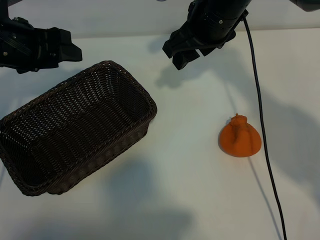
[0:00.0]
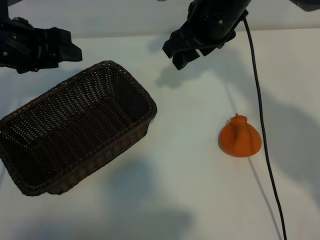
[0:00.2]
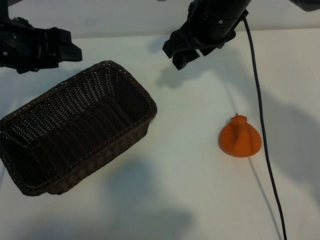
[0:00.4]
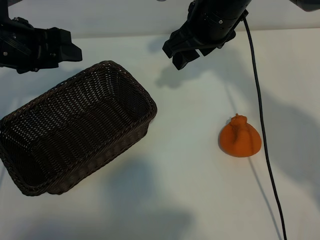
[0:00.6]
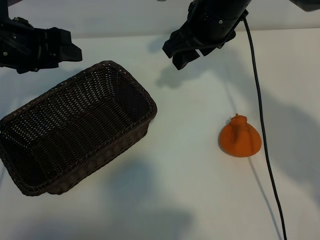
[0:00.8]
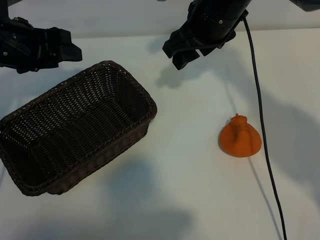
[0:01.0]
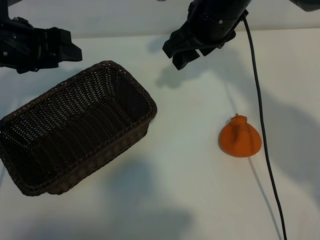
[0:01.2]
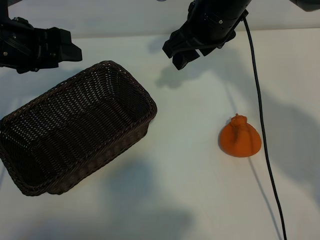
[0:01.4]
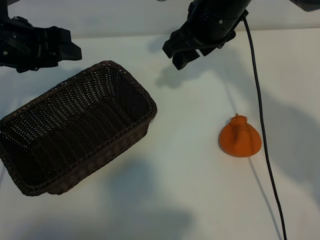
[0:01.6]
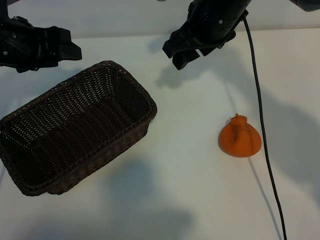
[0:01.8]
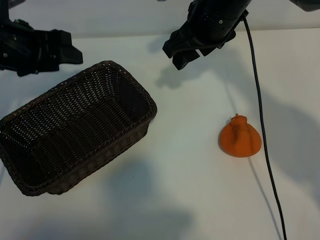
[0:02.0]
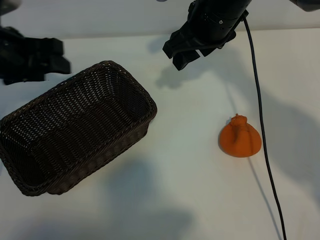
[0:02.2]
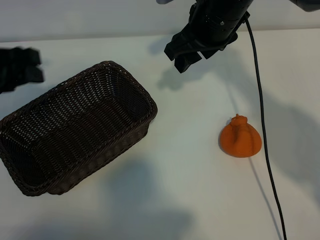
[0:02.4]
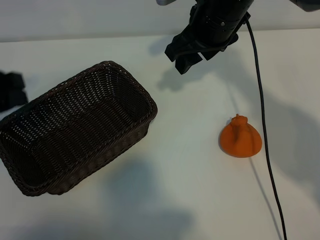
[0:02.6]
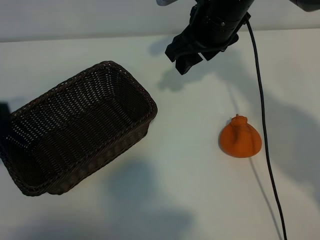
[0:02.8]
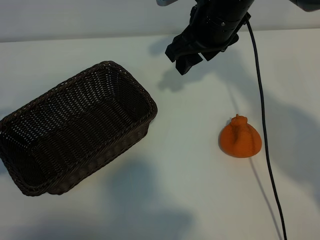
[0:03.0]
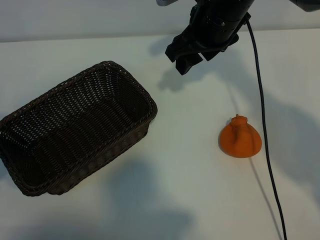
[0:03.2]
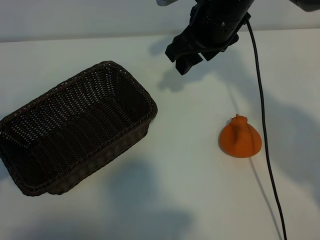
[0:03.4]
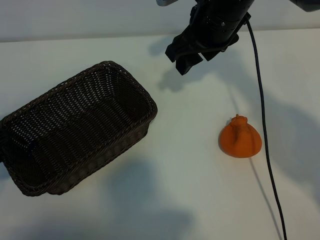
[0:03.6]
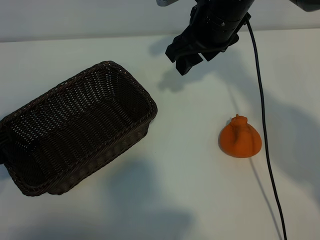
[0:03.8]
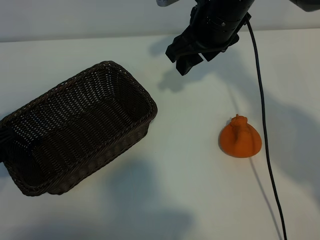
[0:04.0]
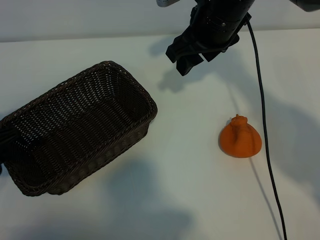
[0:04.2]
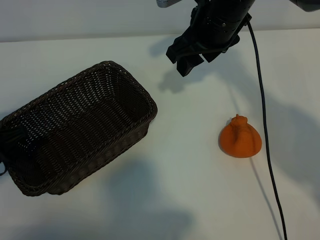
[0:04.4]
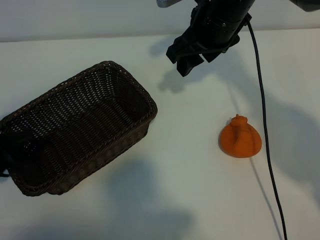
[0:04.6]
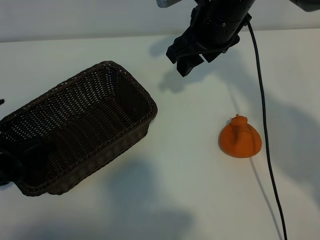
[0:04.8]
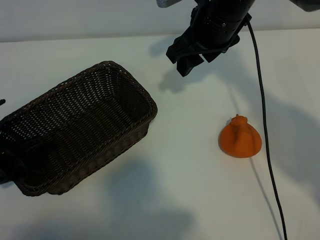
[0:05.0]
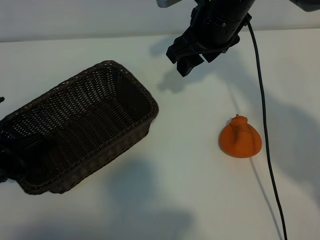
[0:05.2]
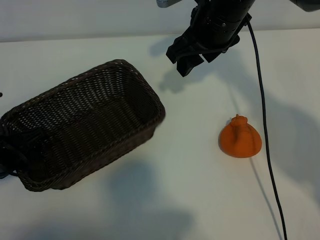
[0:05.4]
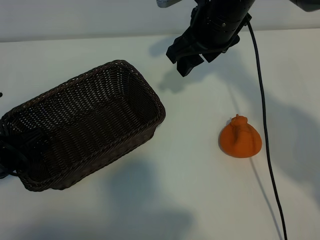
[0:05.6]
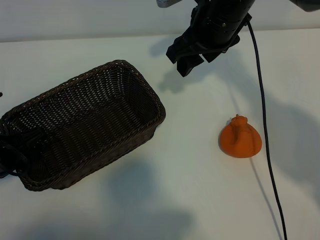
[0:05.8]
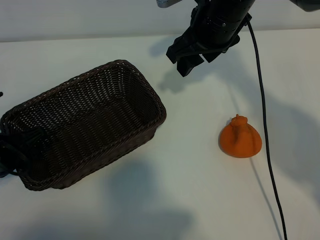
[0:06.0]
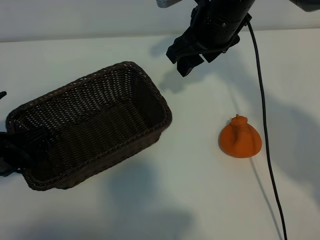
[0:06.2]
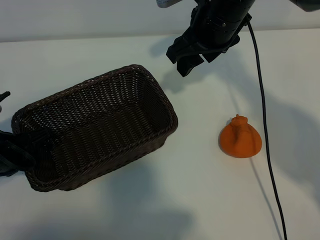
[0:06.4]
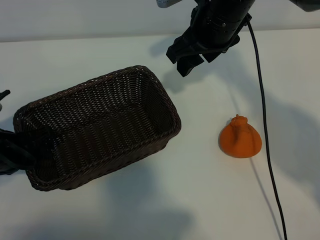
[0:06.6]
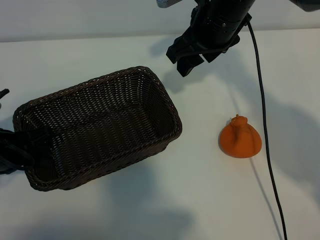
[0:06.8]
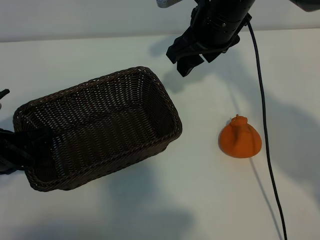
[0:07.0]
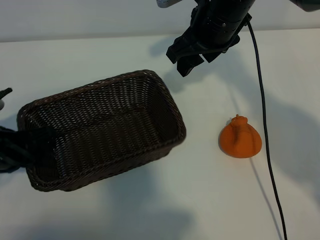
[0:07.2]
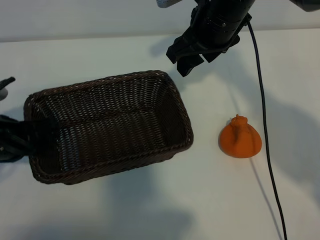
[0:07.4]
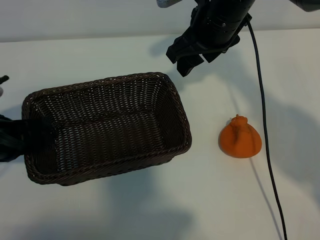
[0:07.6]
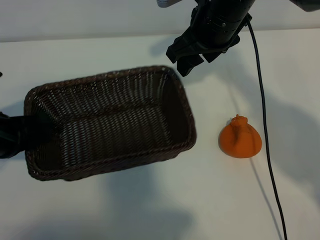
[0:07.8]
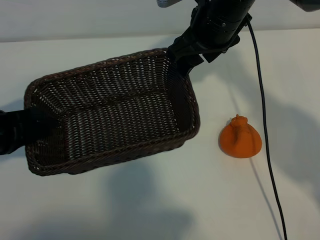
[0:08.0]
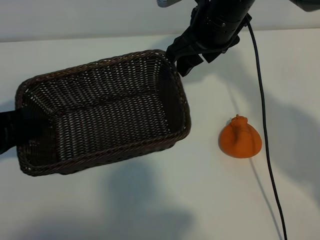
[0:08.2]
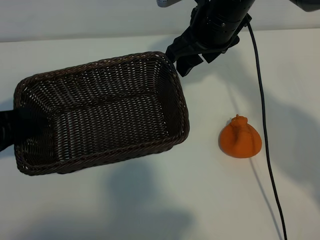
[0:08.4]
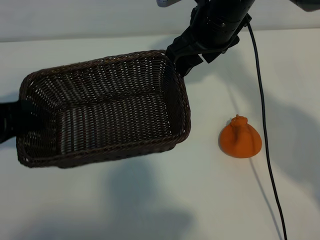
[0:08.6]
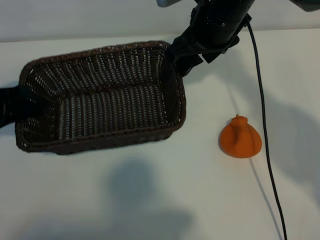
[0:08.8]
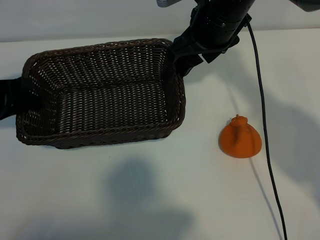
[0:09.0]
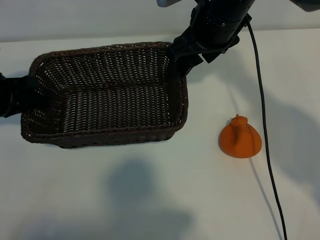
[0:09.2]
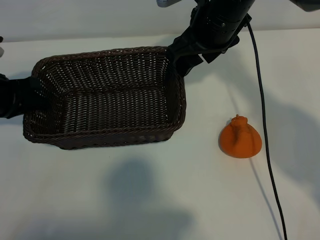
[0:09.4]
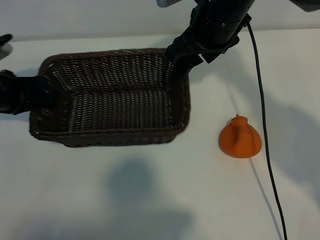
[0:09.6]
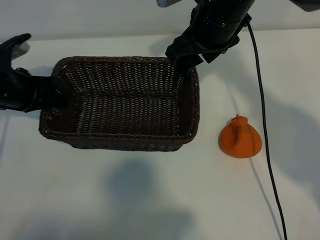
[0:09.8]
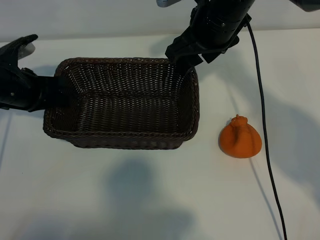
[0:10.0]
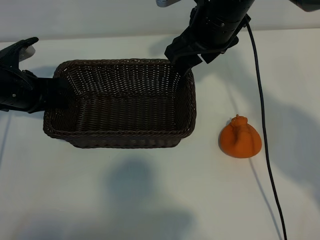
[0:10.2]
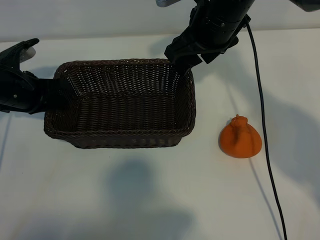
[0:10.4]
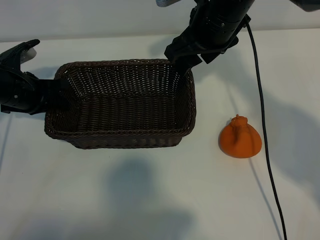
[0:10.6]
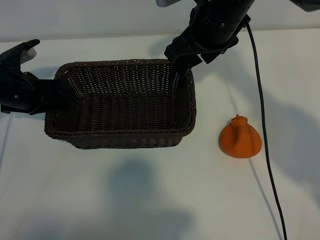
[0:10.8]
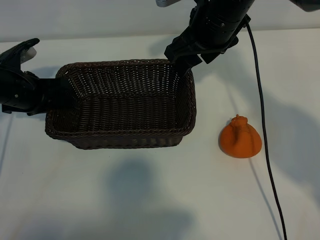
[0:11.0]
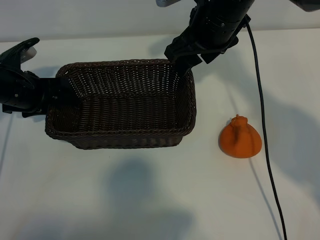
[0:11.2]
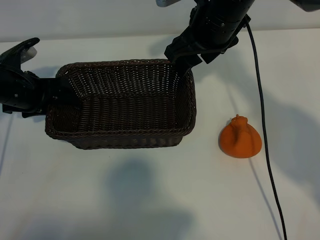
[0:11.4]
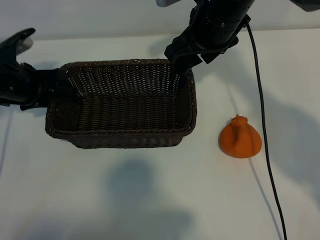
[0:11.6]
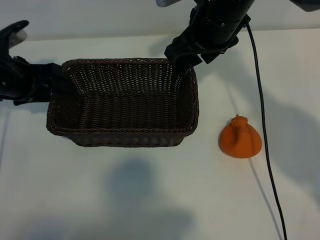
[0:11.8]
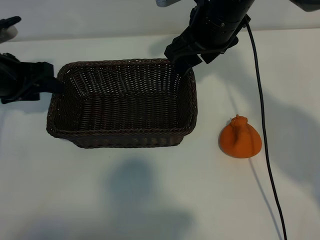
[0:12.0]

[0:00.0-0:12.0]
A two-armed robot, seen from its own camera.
Task of the whole recording: pick up the orange and put it into the basket.
Step, 0:01.6 to 0:05.4: Grasp the basket with left gripper.
Step, 0:05.6 to 0:11.0: Place the basket in the center of view with left gripper.

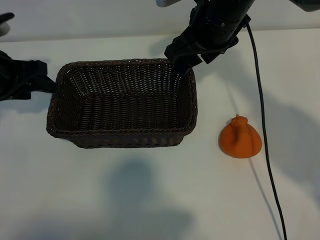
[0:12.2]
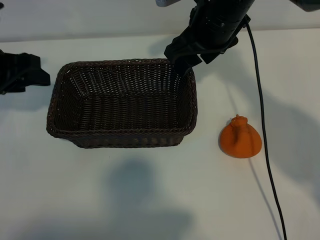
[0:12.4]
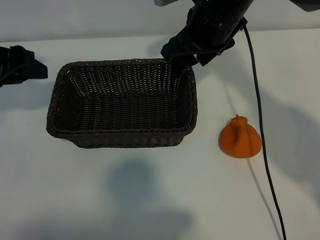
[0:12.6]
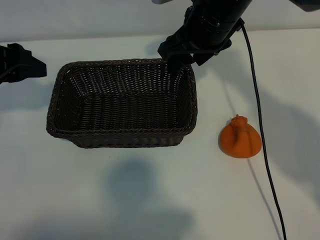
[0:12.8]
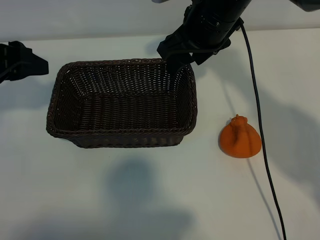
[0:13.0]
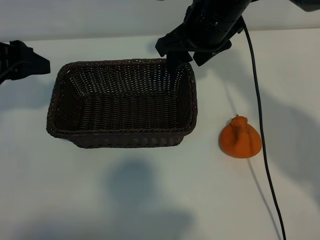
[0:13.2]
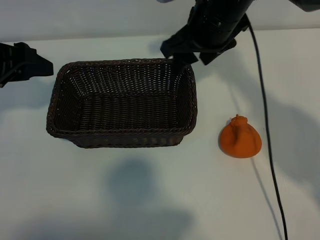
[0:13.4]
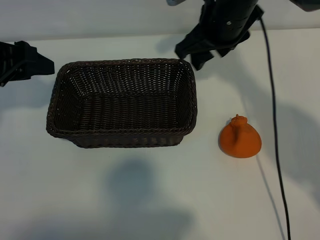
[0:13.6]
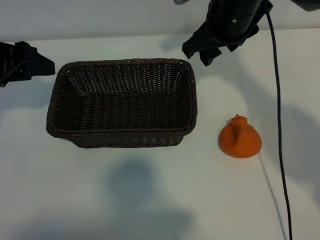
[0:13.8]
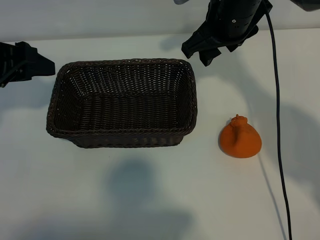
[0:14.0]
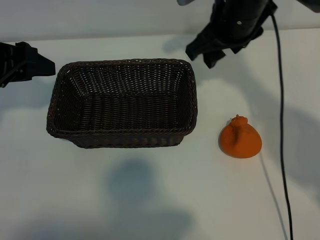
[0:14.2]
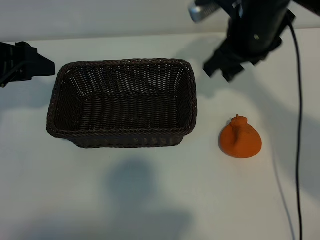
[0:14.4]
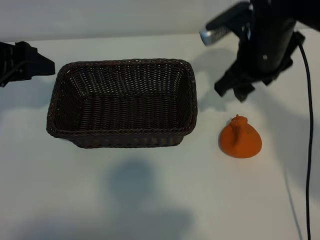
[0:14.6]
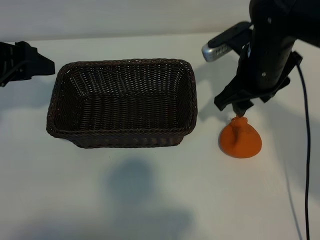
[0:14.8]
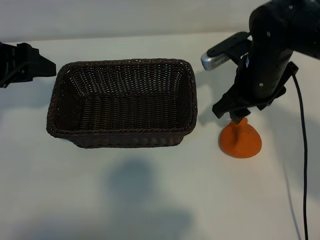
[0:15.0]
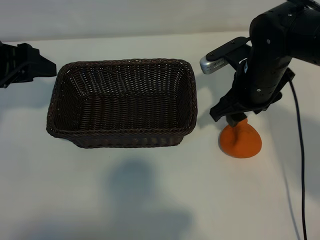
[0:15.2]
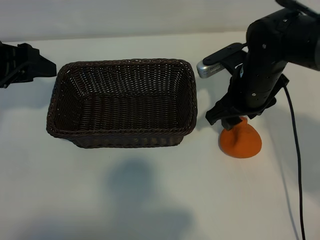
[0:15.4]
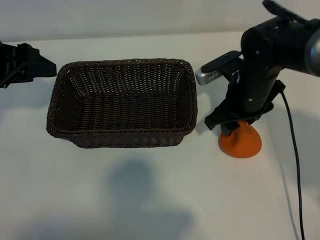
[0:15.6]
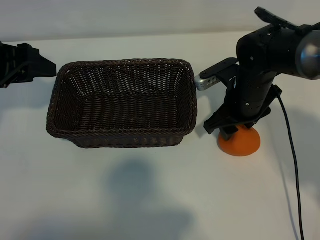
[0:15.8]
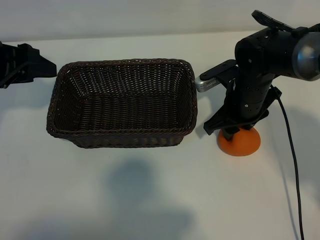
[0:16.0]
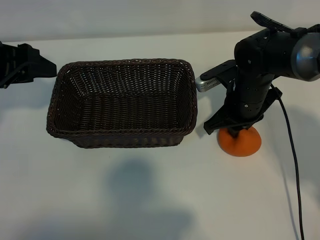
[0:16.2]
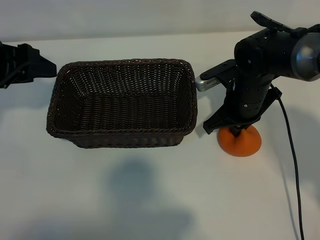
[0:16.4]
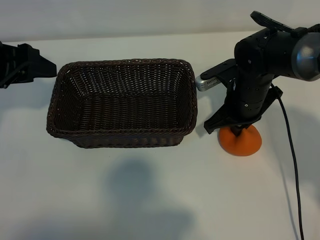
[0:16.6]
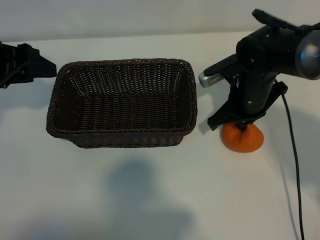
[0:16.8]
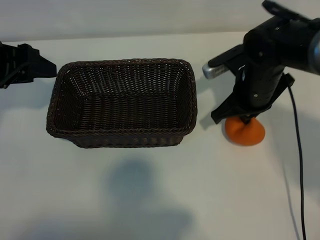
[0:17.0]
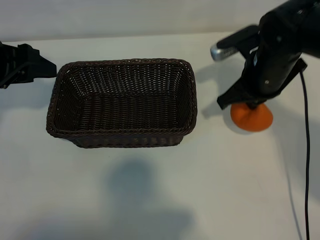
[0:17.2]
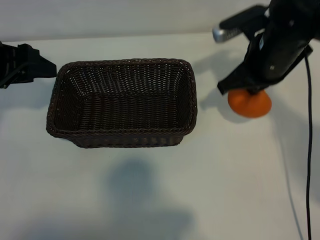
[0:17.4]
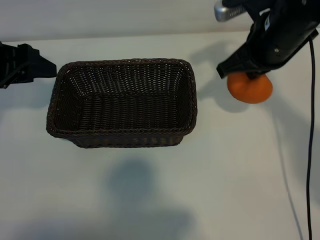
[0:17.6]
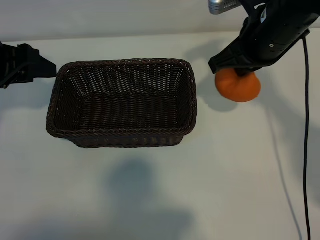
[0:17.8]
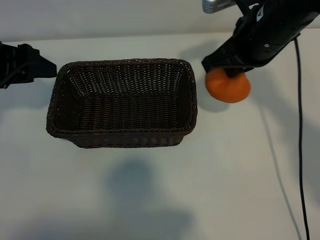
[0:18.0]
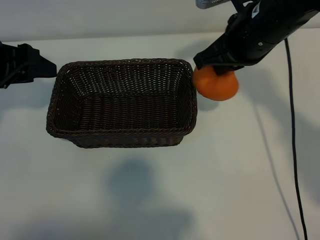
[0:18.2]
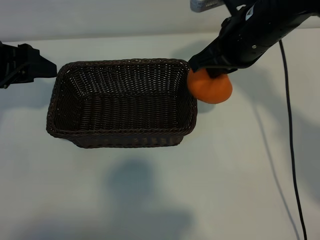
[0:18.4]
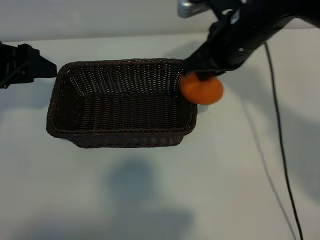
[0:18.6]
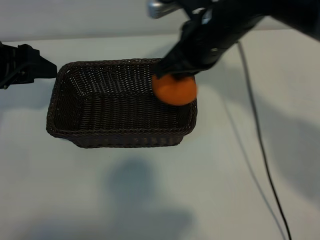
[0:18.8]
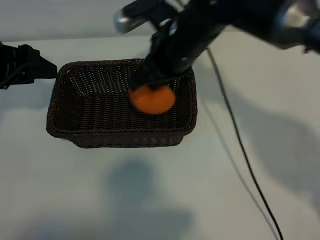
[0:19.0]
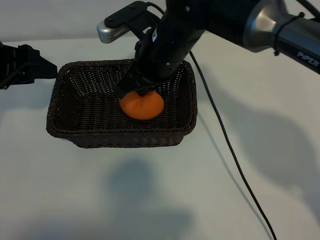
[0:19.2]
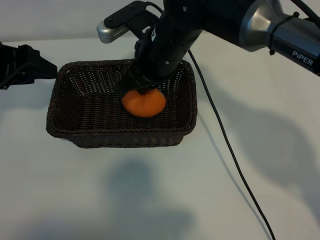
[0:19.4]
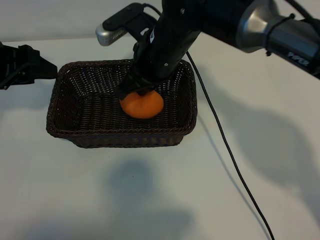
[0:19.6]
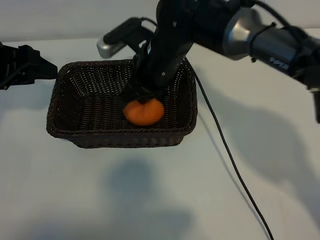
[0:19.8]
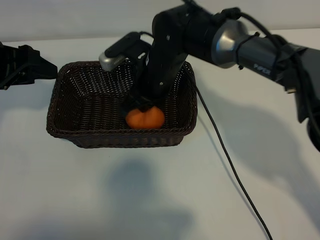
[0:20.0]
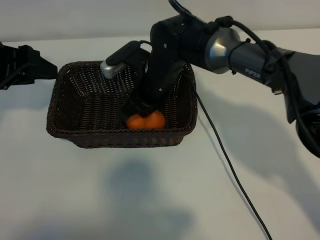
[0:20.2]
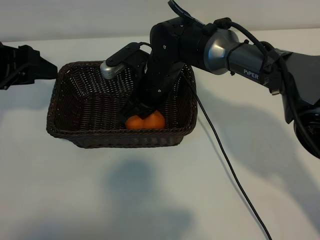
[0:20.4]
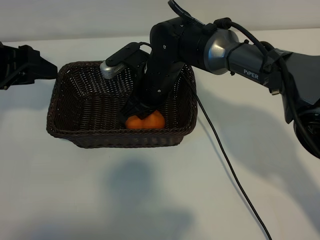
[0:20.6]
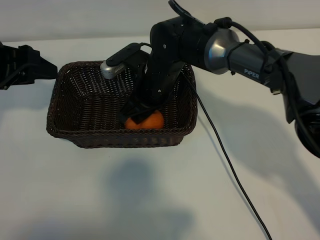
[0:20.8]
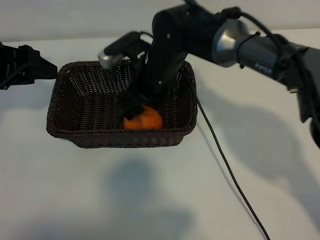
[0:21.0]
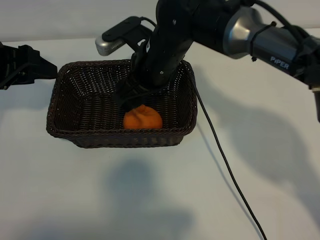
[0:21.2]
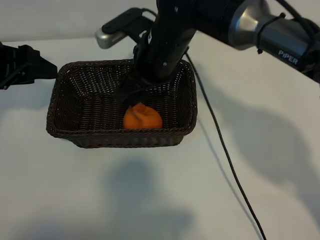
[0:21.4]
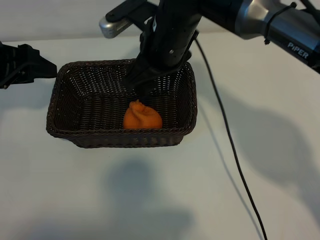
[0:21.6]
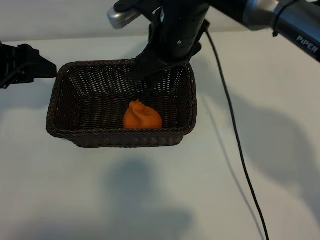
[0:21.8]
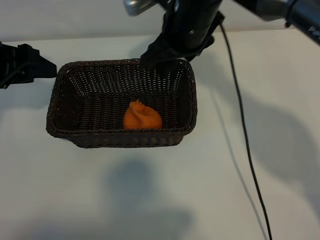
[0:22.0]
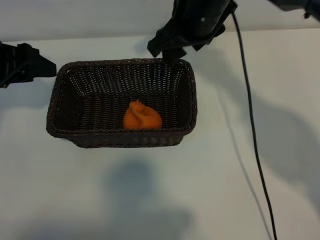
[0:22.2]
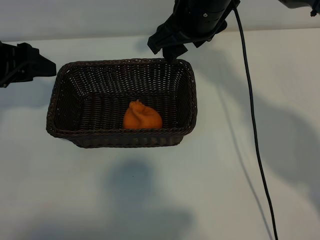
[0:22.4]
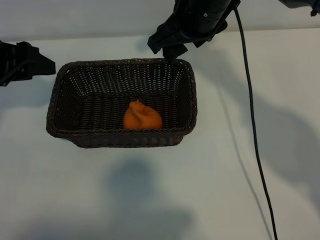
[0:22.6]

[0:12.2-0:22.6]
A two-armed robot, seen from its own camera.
Task of the whole recording: pick up the orange and put it into the basket.
Step, 0:12.2 to 0:16.2: Grasp the orange with right gripper.
Step, 0:16.4 to 0:20.8: Place the orange in the basket with right gripper.
